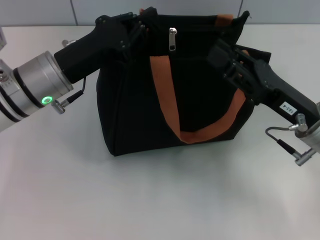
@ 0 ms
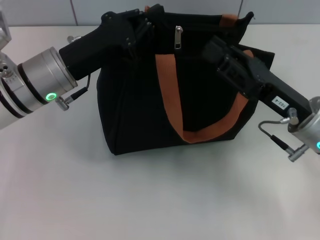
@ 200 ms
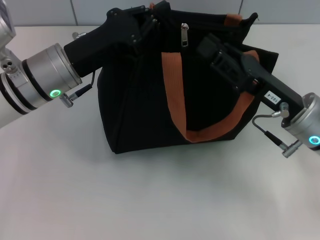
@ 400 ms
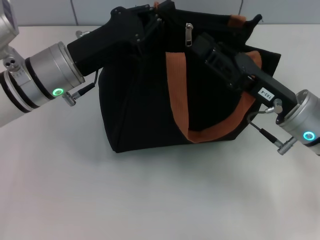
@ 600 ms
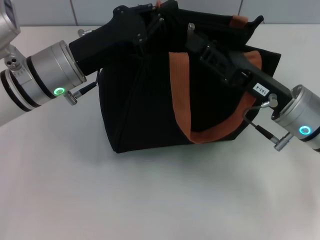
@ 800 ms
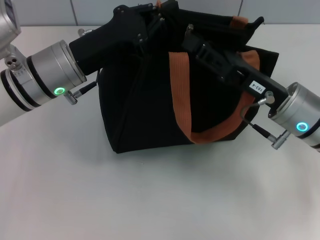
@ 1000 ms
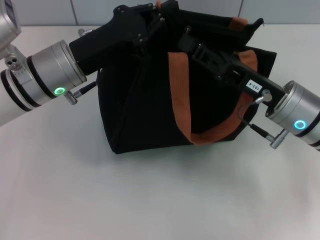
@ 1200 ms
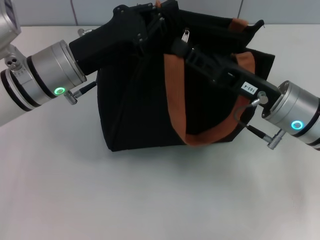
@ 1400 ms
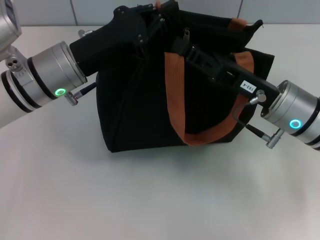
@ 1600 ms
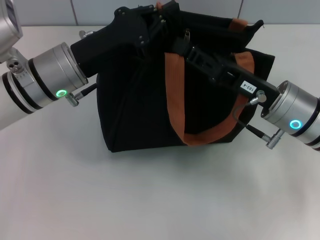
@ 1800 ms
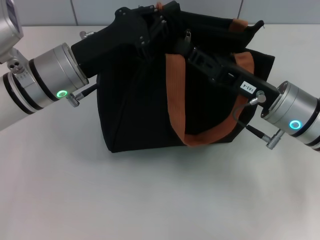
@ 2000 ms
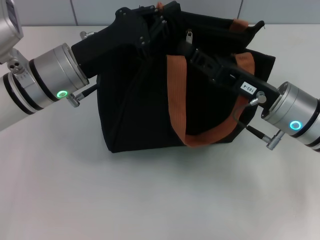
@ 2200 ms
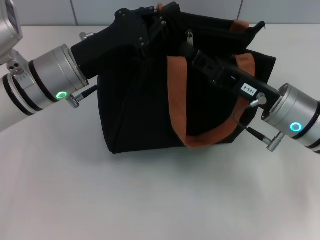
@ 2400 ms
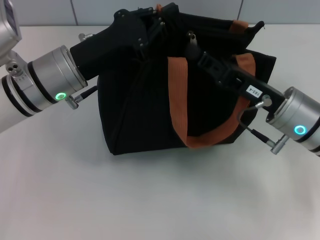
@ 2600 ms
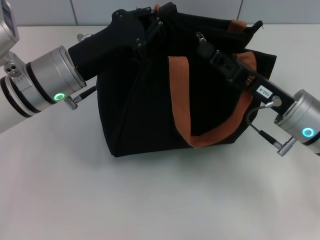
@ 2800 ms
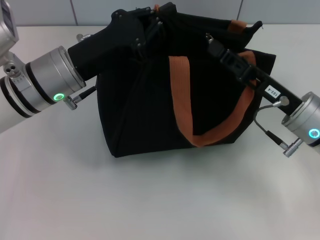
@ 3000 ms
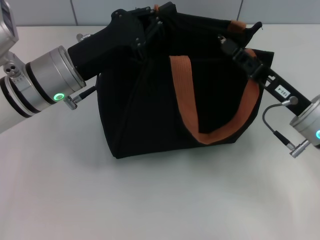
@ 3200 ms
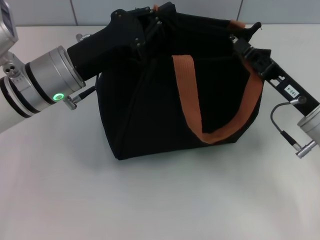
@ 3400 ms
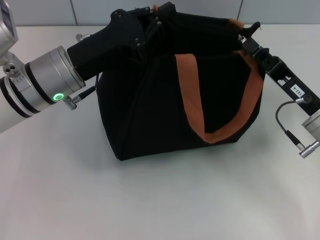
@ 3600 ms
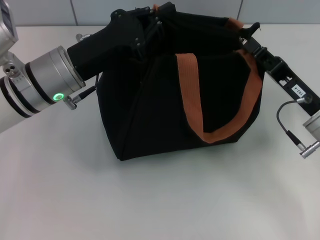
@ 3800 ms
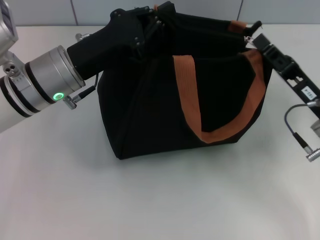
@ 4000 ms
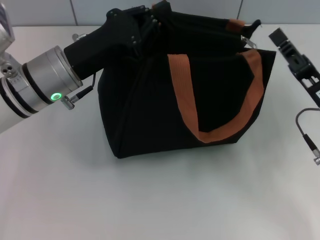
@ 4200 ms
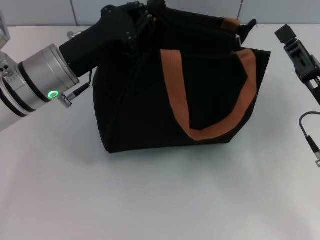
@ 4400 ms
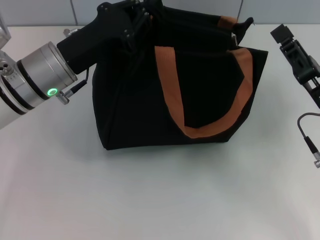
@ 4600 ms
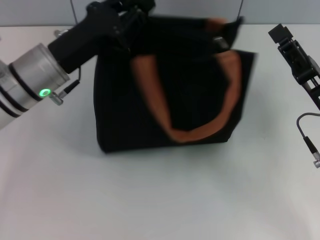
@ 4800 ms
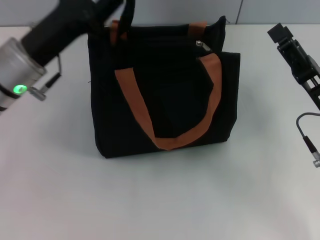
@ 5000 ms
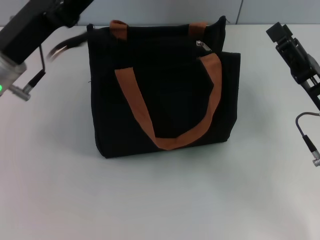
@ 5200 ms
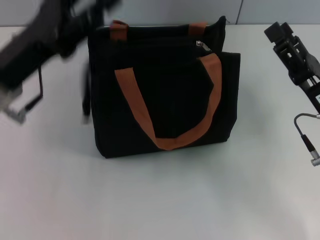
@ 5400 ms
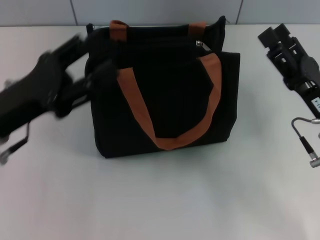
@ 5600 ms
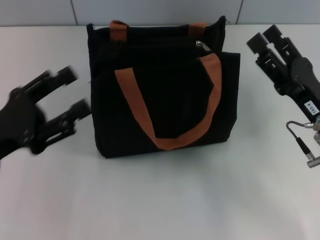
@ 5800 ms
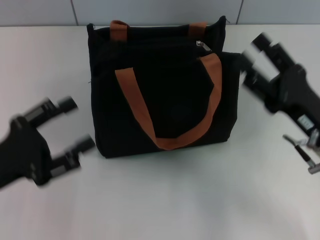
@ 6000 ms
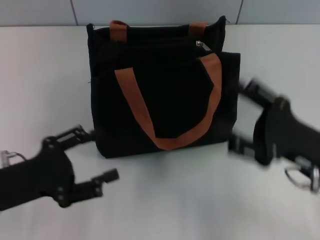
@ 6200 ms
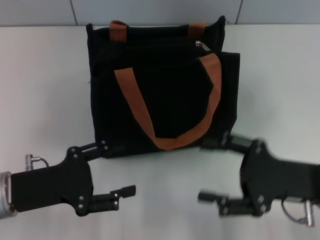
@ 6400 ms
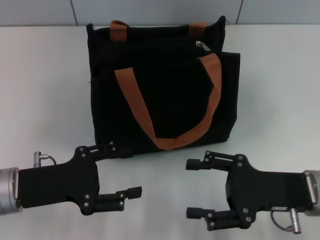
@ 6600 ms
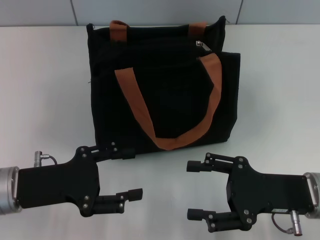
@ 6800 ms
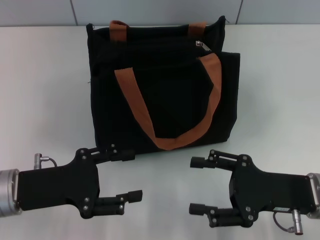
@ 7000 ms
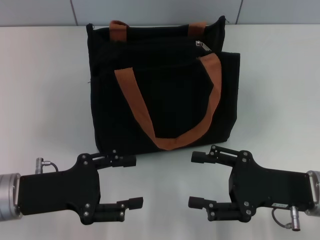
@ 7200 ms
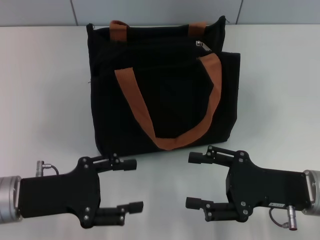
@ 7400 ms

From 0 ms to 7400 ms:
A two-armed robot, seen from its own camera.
Step, from 0 ms to 4000 ms: Pull up the zipper with your right hand.
Step, from 4200 ms to 5000 ms: Grab the zipper with your left hand.
From 0 ms to 1400 ms: There are only small adjustments of the grippers.
From 1400 ms to 3000 ms: The right gripper closes up.
From 3000 ms to 4400 ms: The right gripper changes place by approximately 5 cm.
From 4400 ms to 6000 ms: The right gripper opens. The left gripper heads backward and to the left, covering about 20 cm, and opens up.
